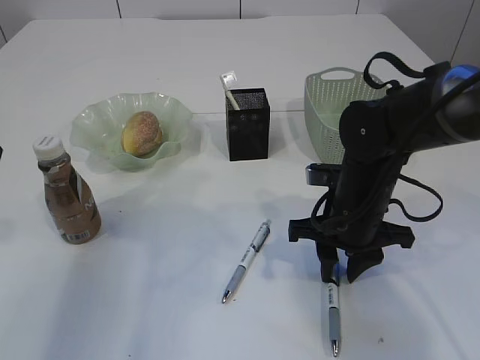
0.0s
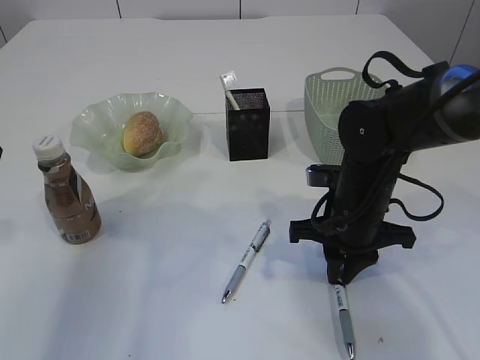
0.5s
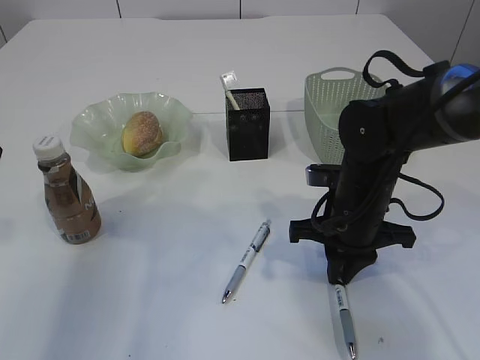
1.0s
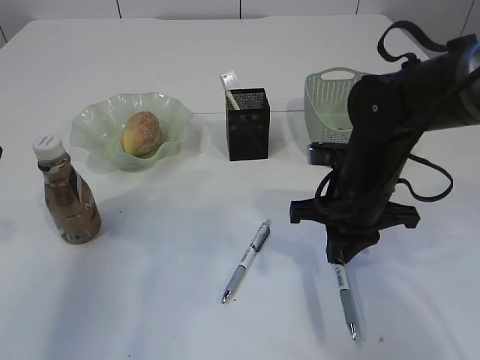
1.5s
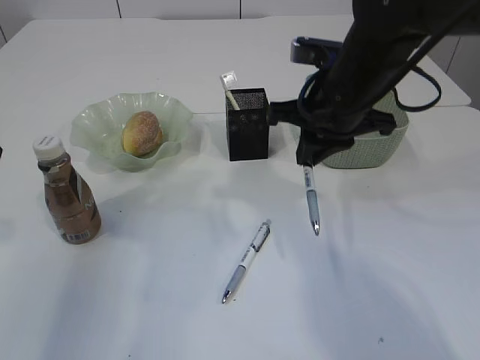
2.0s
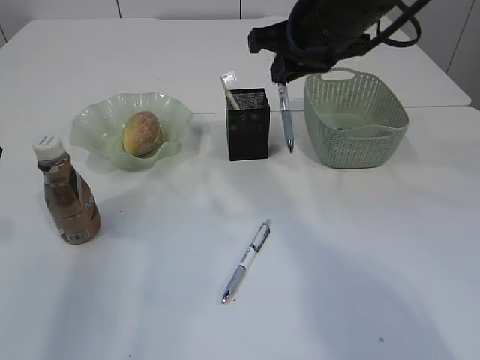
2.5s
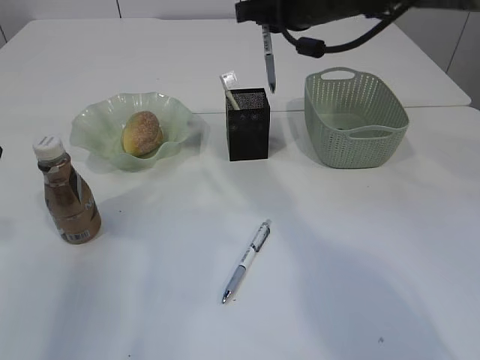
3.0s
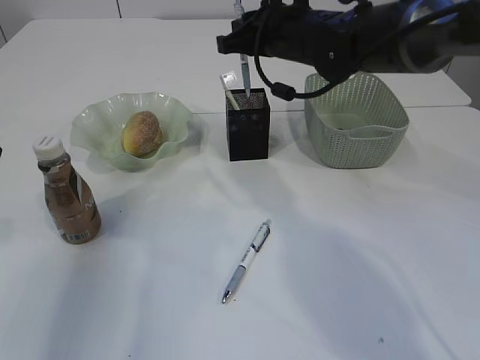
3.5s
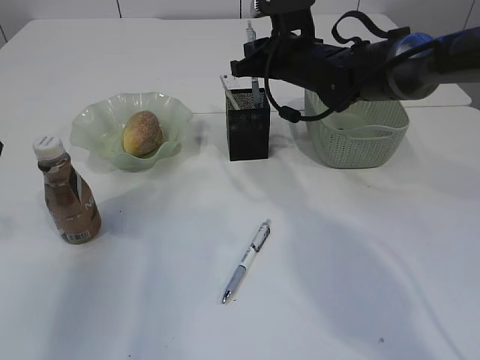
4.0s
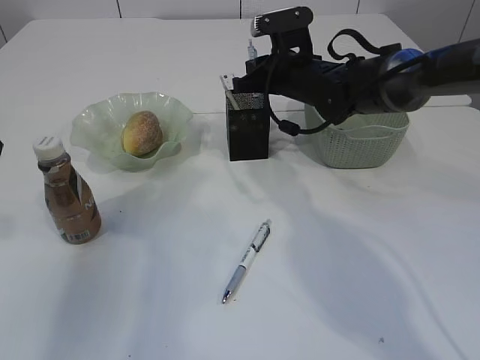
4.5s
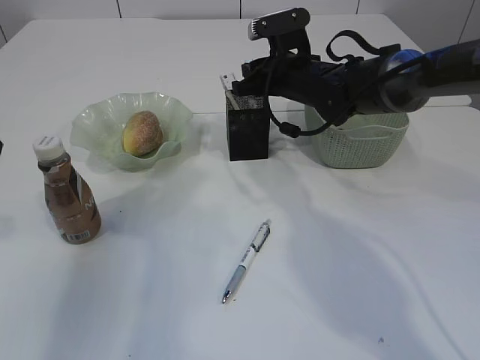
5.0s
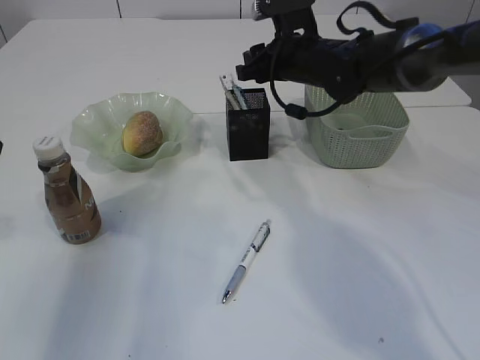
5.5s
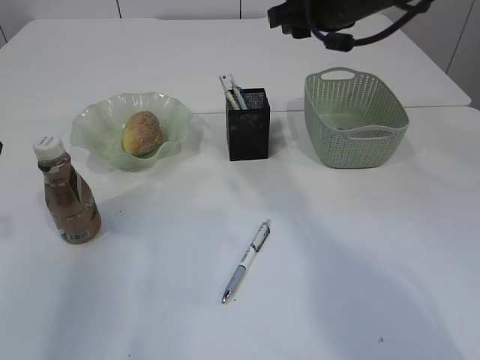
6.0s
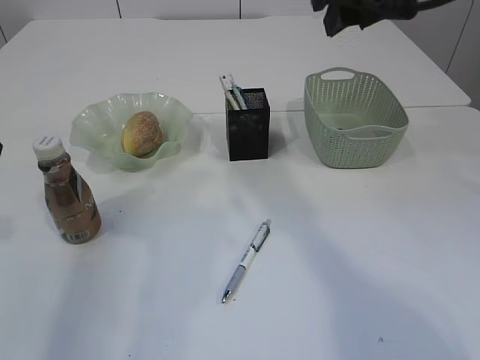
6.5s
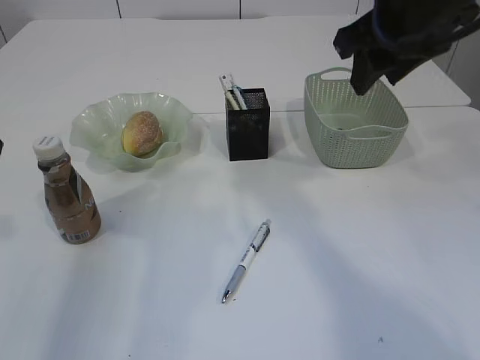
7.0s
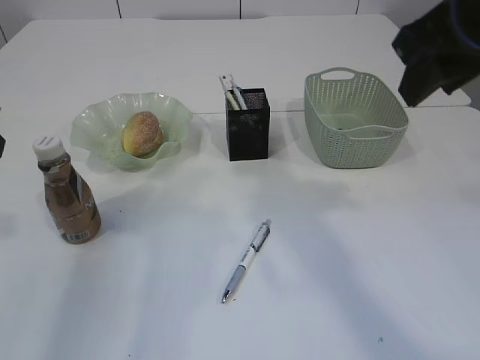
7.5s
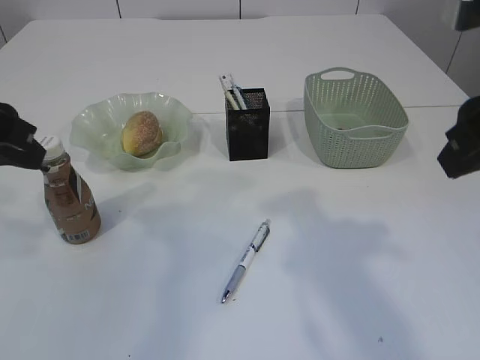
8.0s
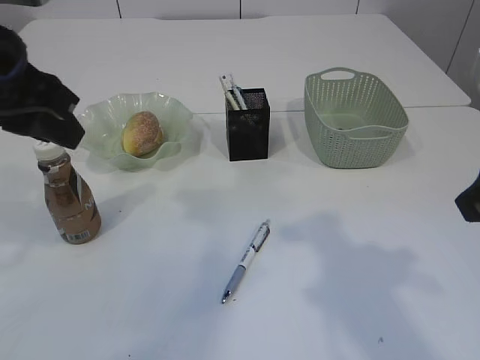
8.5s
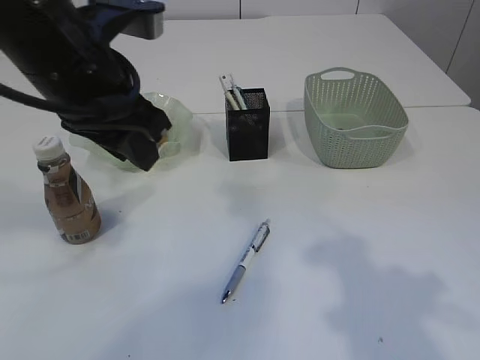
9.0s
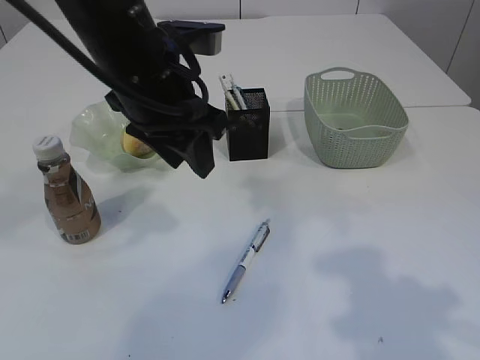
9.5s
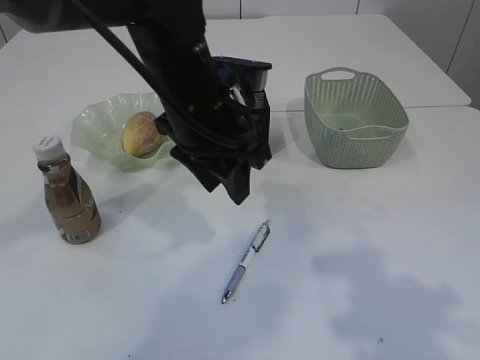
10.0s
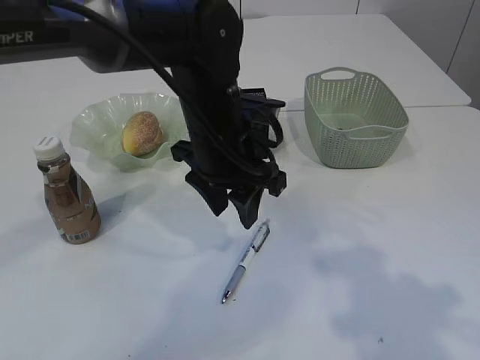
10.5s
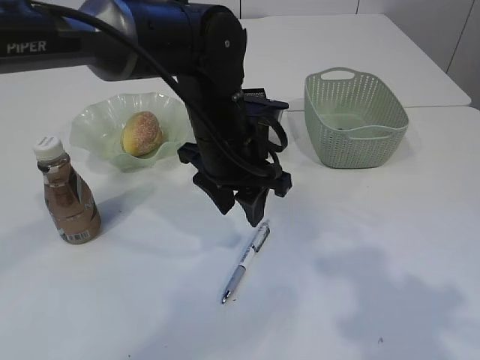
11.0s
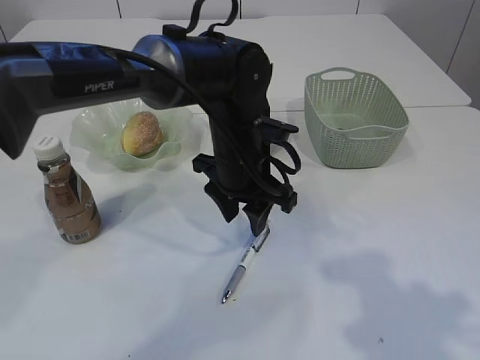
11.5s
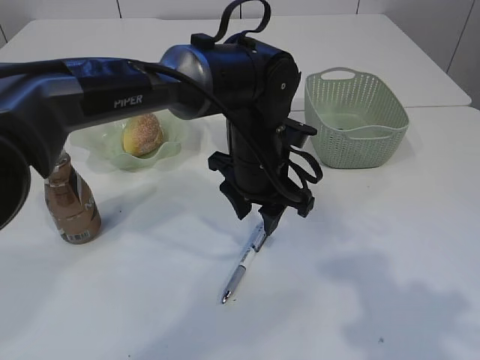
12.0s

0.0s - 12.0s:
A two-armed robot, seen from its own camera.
Step, 2.0s - 5.5s: Place the pen into the pen holder.
0.0s - 2.0s: The right gripper shifts about 15 cm upward, and closes its fingers.
2.0s - 4.0s: The right gripper moves forward, approximately 10 cm.
4.0s - 6.0s: The right gripper is displaced upward and backward by roughly 10 cm, and opens its fingers.
6.0s - 8.0s: The right gripper goes about 20 cm backward.
8.0s - 10.0s: The left gripper shifts some 20 cm to the right and forward. Meanwhile the right gripper goes roughly 10 cm backward.
10.0s - 12.0s: The left gripper shifts some 10 cm downward and to the right.

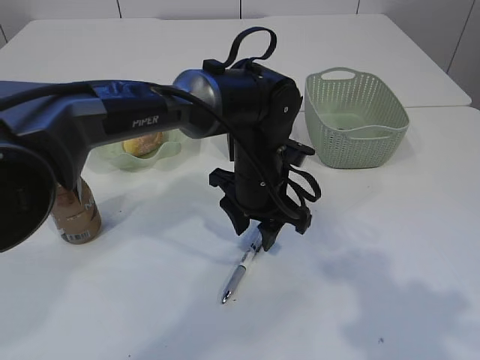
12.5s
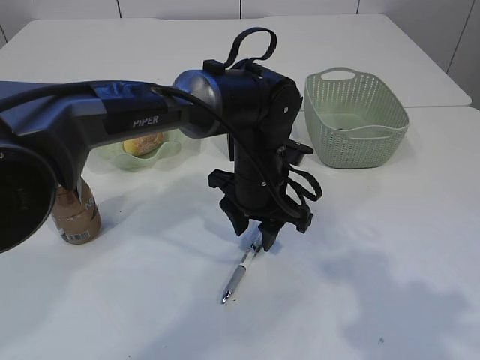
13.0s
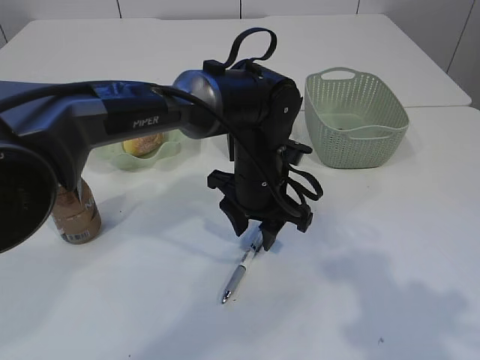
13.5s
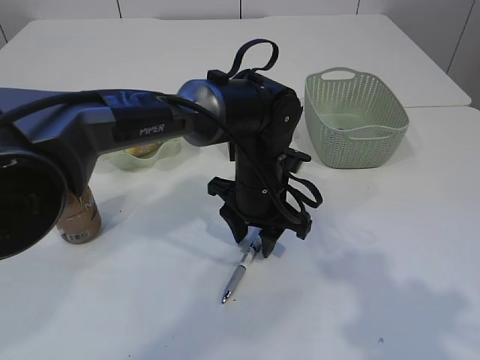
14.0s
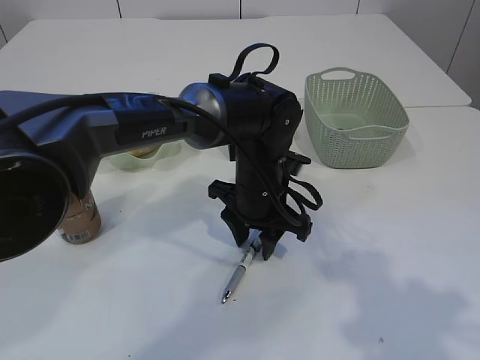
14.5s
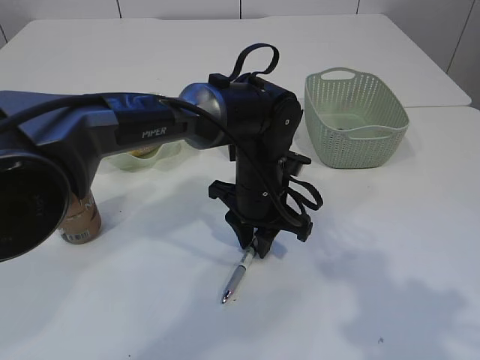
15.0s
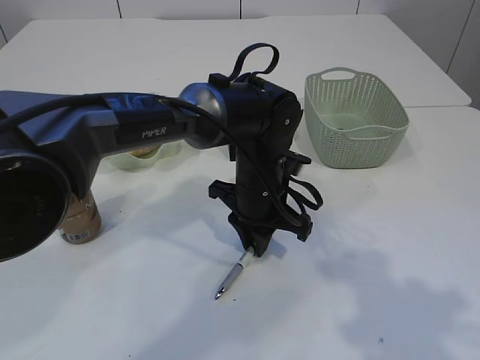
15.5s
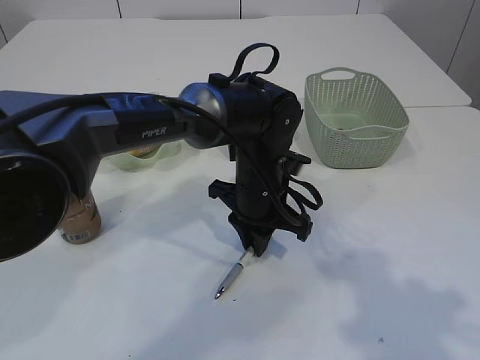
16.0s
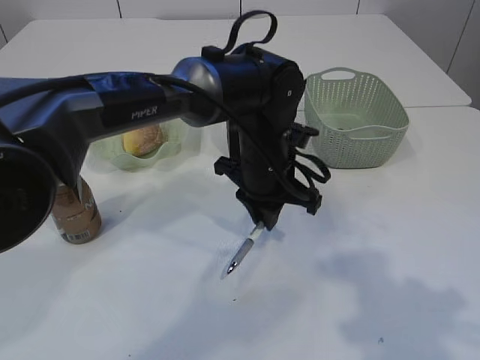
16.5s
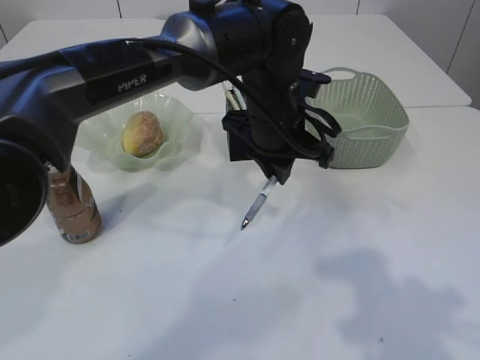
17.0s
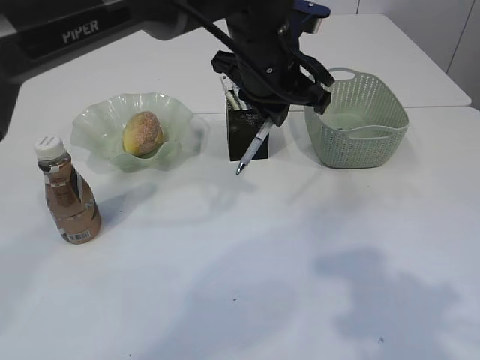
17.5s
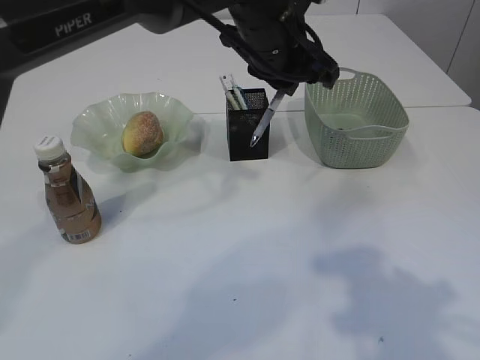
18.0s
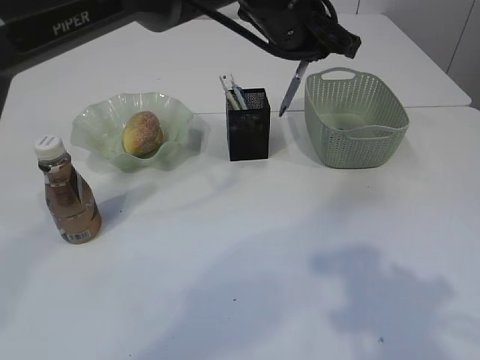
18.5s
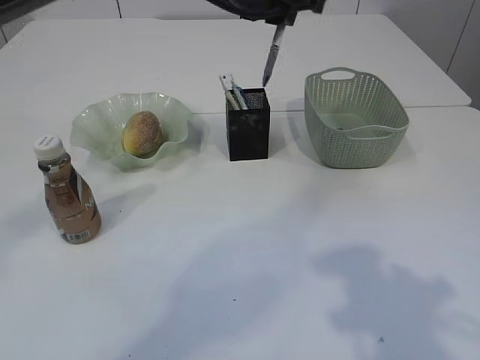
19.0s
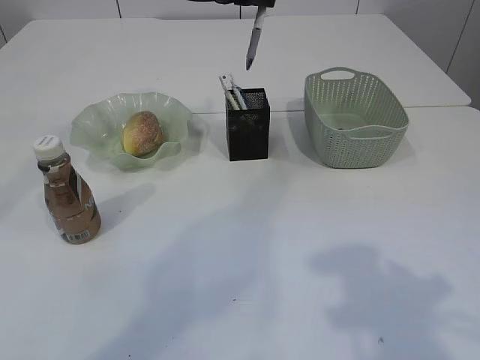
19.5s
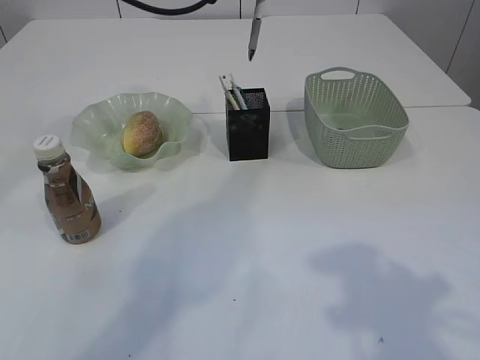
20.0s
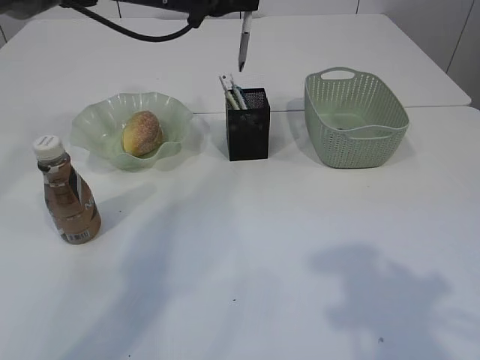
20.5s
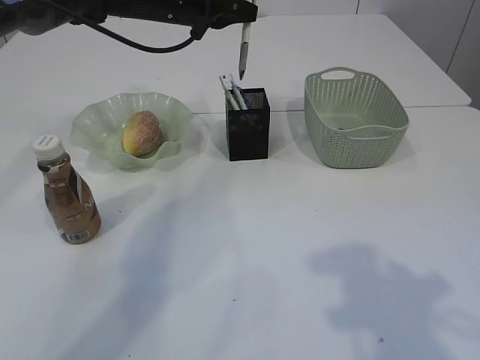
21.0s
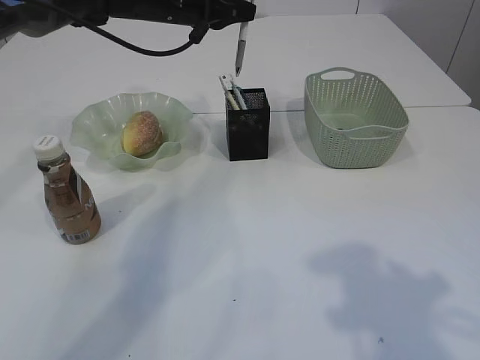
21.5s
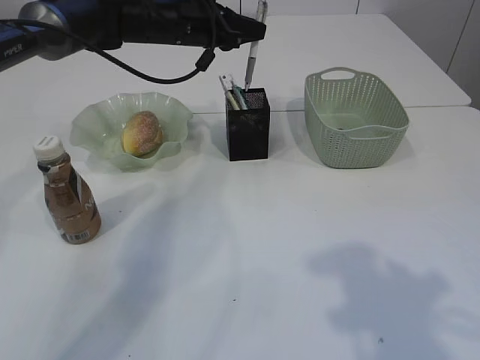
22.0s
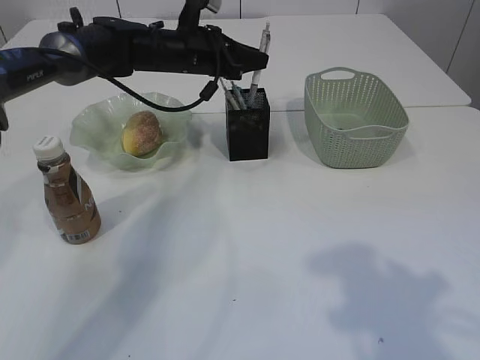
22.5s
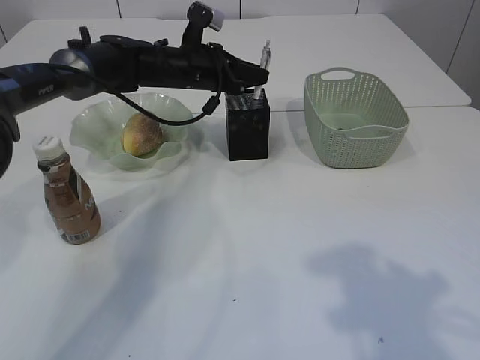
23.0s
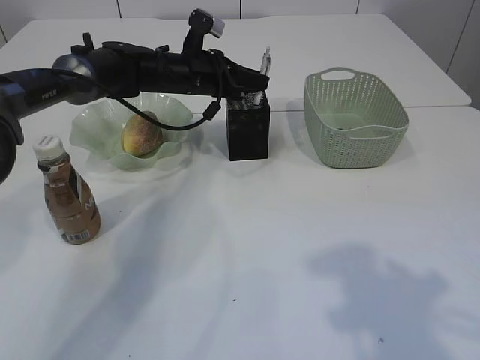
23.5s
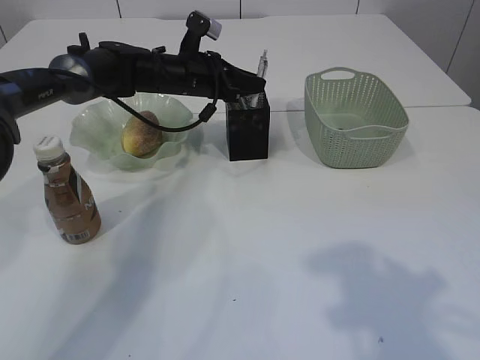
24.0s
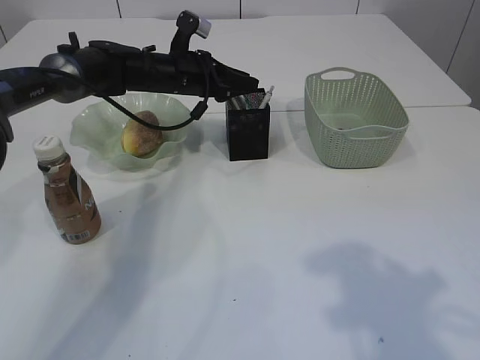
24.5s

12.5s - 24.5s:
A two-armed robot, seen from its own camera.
Step, 12.5s - 17.0s: Pick up the pen with left arm.
12.5s - 14.5s: The grippers stay close to where they were, moving slightly.
14.5s - 16.5s: The left gripper closes its fingers.
16.5s - 18.5s: The left gripper travels upward by some 15 cm.
18.5s - 20.5s: The left gripper travels to the left and forward by some 20 cm.
20.5s - 22.5s: The left gripper goes roughly 10 cm downward.
22.5s - 24.5s: The left gripper opens.

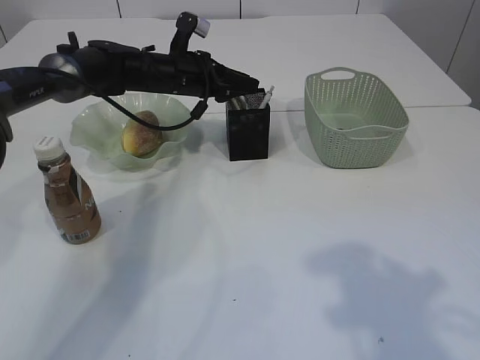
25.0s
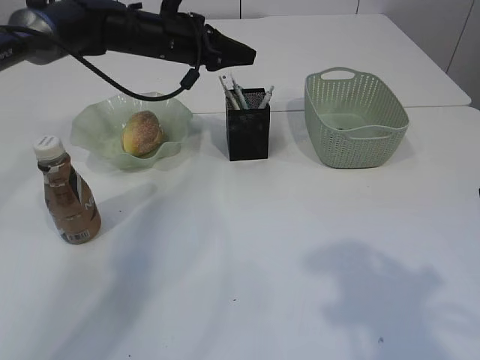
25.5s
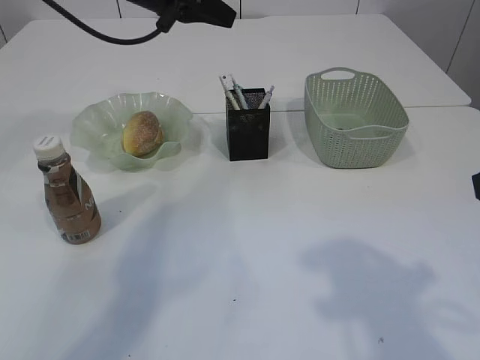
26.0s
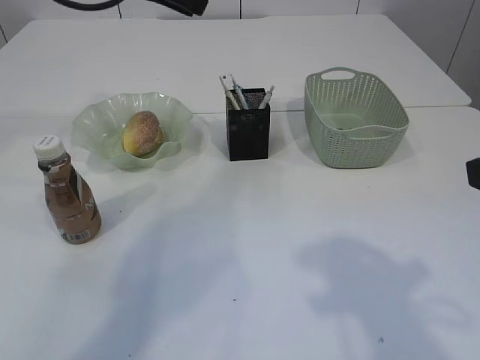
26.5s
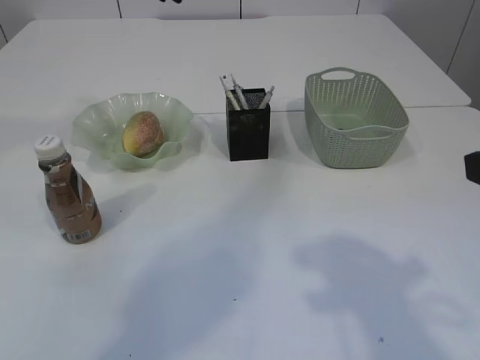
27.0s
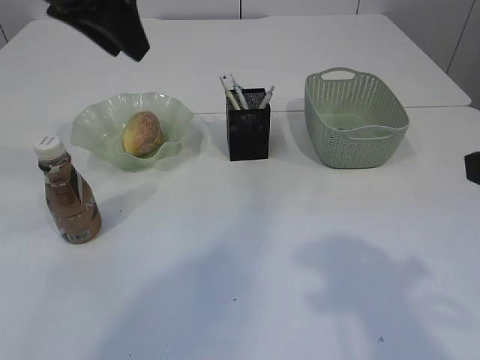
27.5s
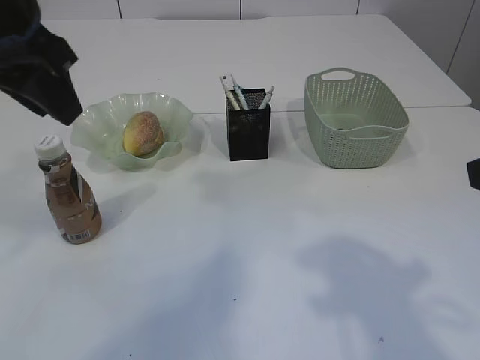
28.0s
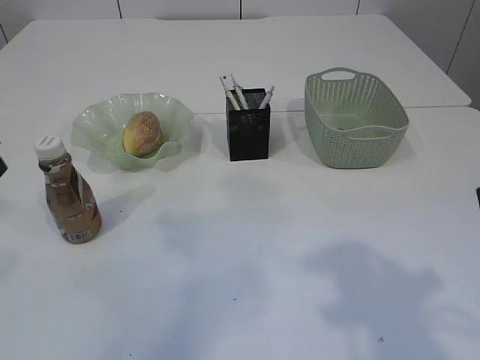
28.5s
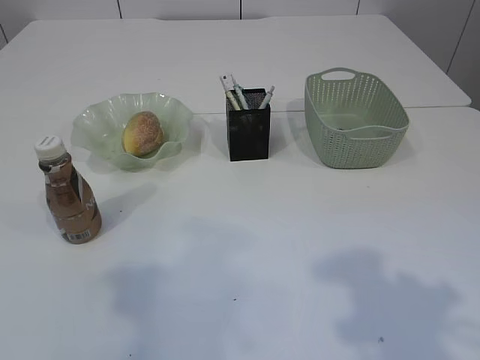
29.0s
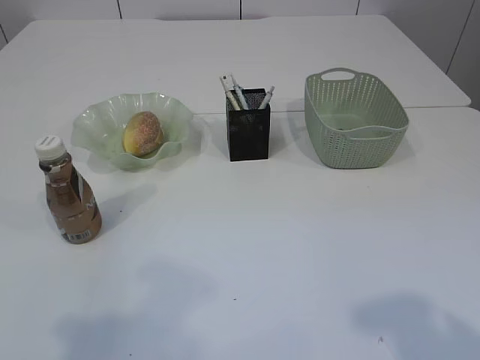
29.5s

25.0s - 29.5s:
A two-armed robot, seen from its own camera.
25.0s - 27.0s: The left gripper heads upward and backward, covering about 25 cm.
27.0s - 29.5s: The right gripper heads backward, covering about 10 cm. The left gripper is displaced backward and to the left by some 35 cm.
